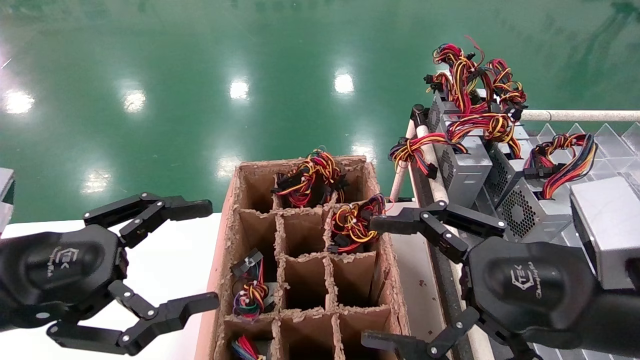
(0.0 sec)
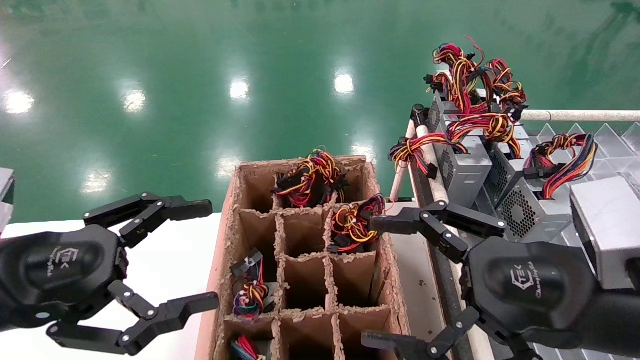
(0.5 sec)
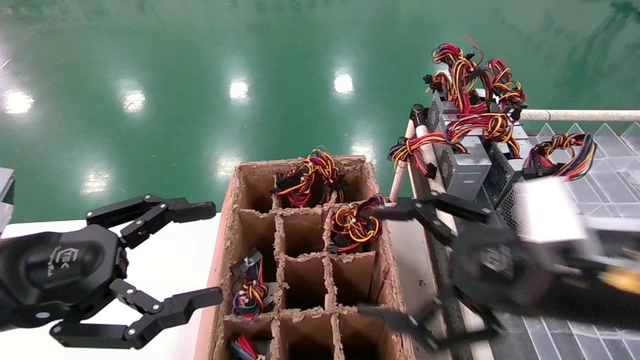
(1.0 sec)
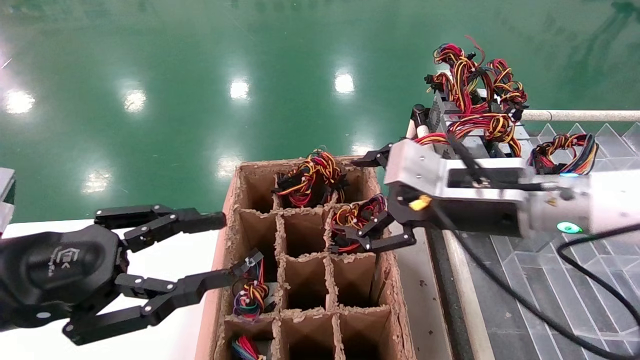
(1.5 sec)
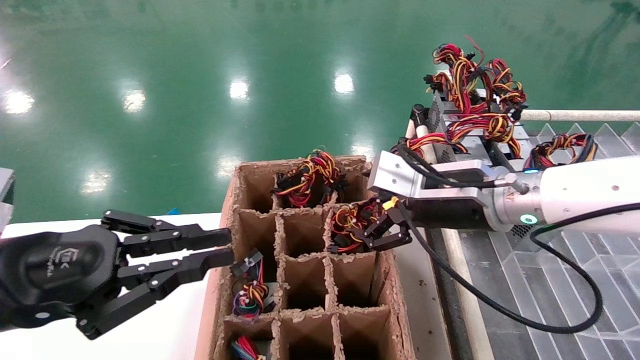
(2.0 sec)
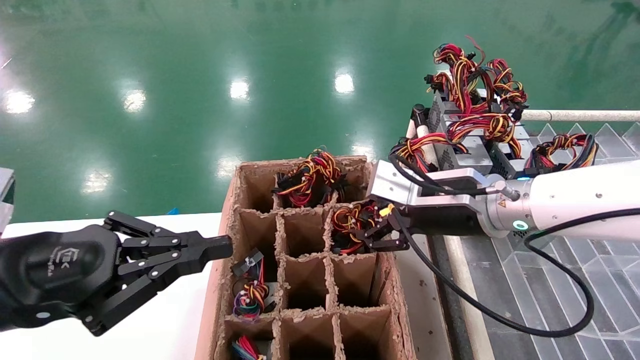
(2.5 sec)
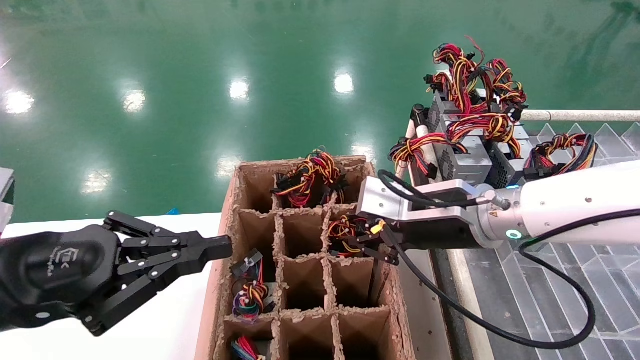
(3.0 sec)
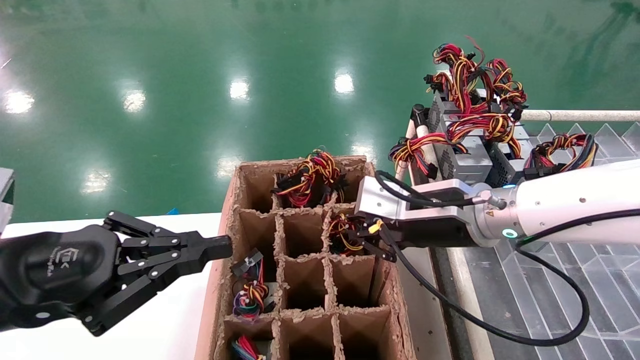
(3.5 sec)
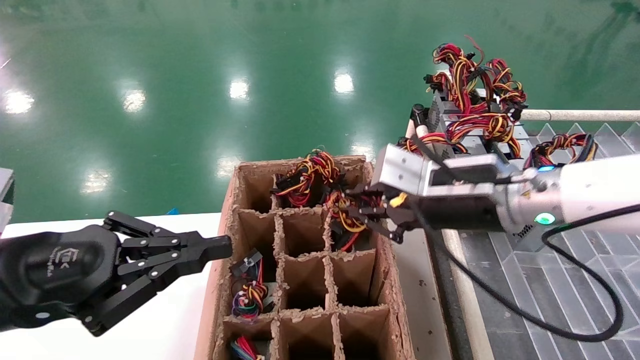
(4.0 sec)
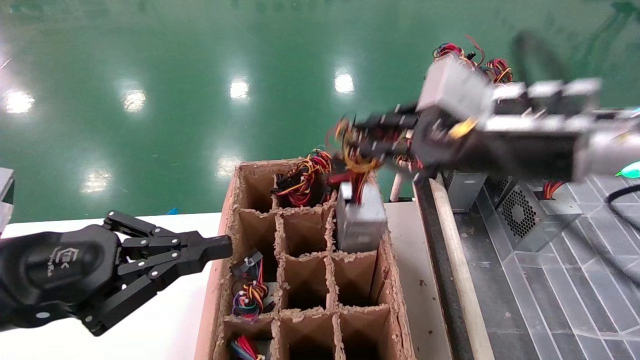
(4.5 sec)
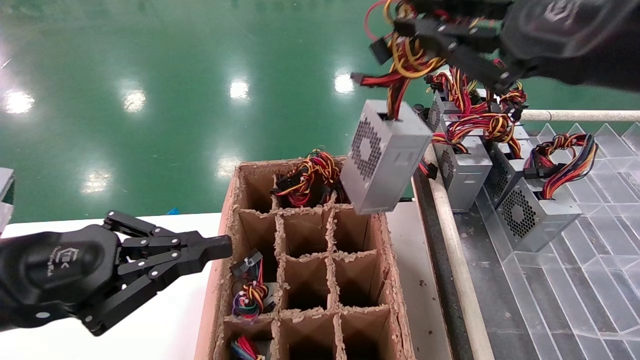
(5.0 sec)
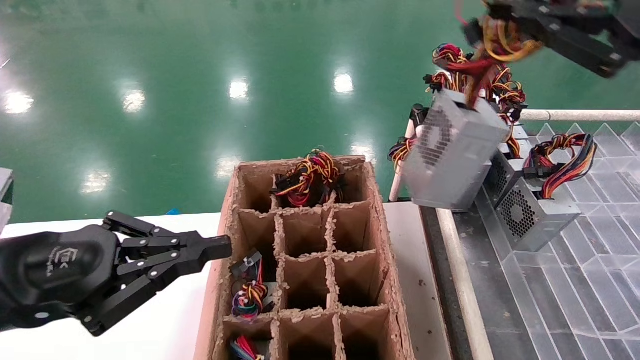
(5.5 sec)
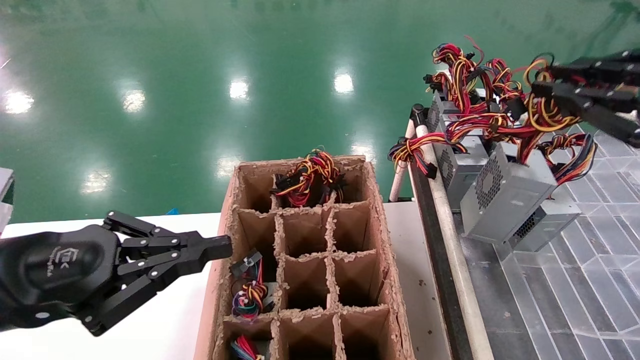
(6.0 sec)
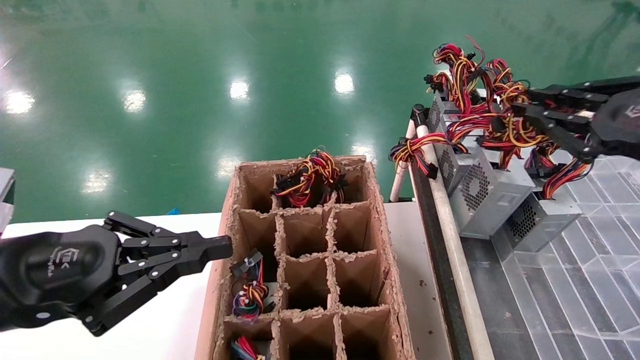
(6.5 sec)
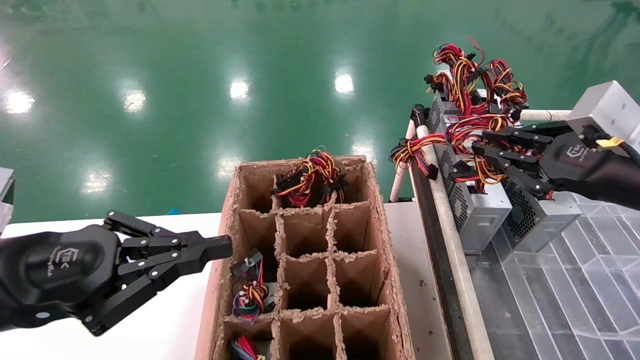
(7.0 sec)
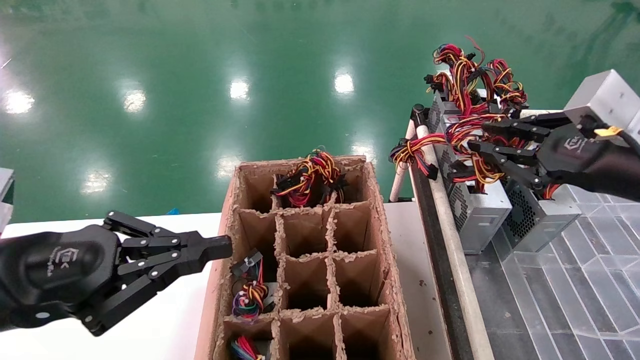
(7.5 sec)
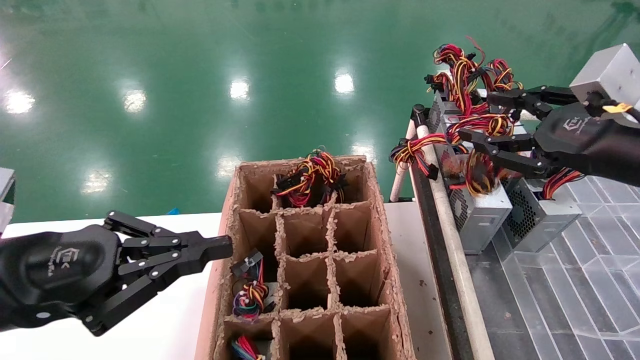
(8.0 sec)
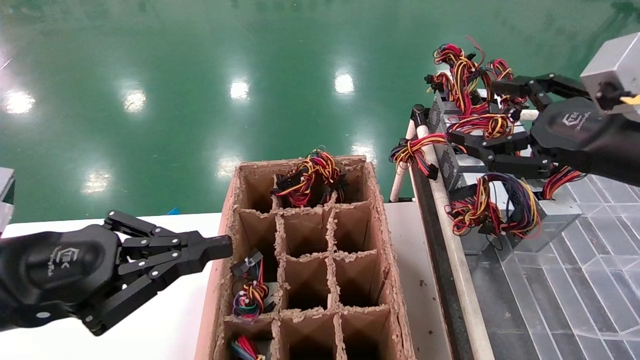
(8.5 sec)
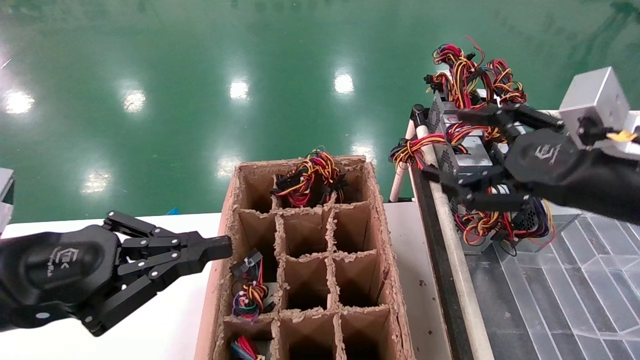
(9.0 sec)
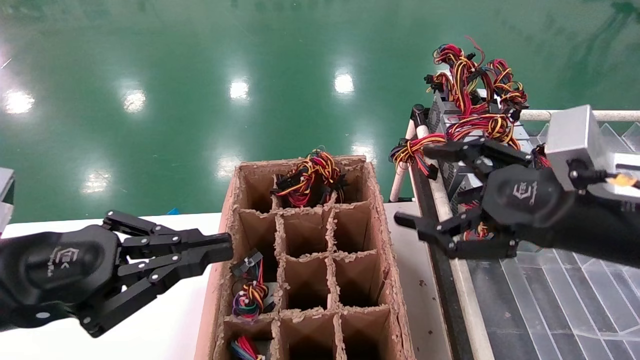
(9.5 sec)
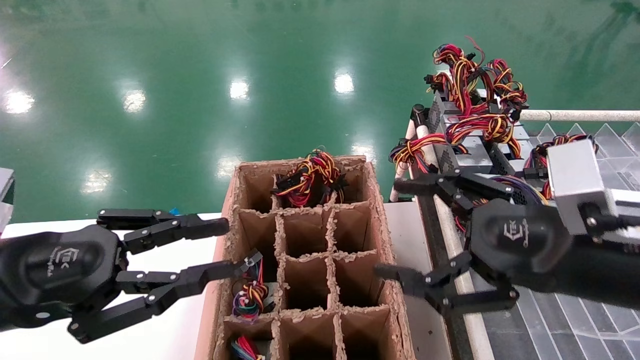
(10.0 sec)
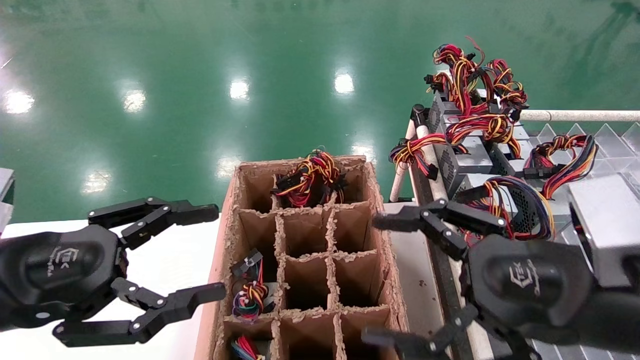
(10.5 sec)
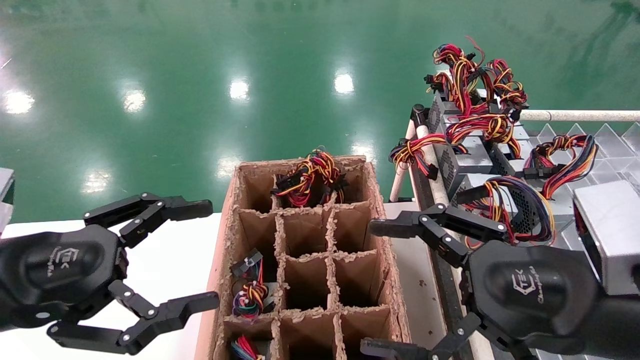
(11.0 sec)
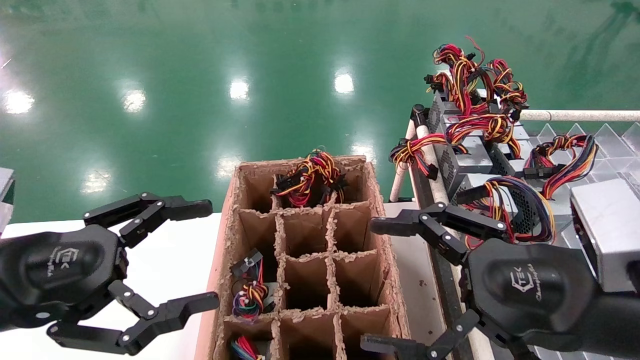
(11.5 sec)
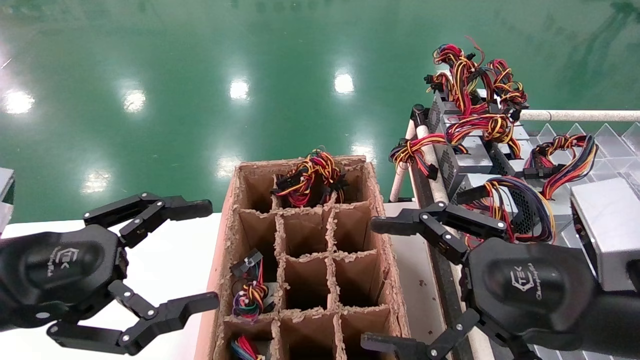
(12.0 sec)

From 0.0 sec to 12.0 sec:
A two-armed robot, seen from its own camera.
Step, from 1.5 sec to 3.5 sec: Grab the main unit power supply from the containment box.
Step, from 4.0 sec to 8.0 sec: Place the main unit power supply in the designated area.
From 0.0 sec to 2.0 sec: The right gripper moves forward and to the left, roughly 15 cm. Meanwhile the left gripper closes its fingers.
From 2.0 sec to 4.0 sec: The right gripper closes its fingers.
From 4.0 sec to 6.0 sec: The right gripper travels to the right, backward and upward by approximately 25 cm.
From 6.0 sec to 8.0 sec: The right gripper travels forward and downward by some 10 cm, and opens up.
From 8.0 sec to 10.0 sec: The right gripper goes some 10 cm to the left and downward, and opens up.
From 10.0 sec to 12.0 sec: The left gripper opens.

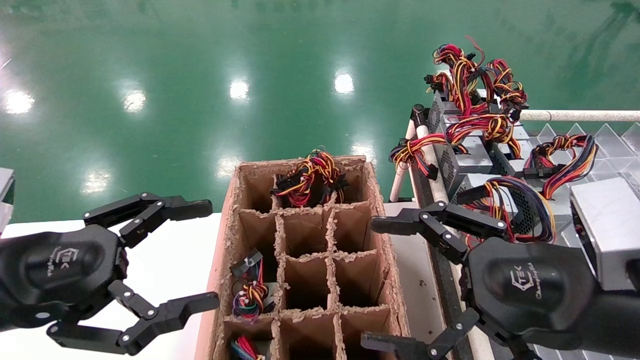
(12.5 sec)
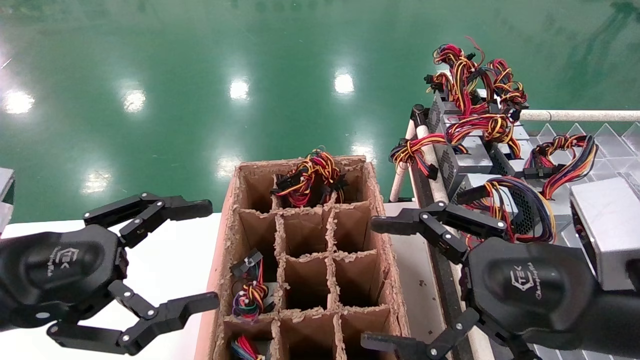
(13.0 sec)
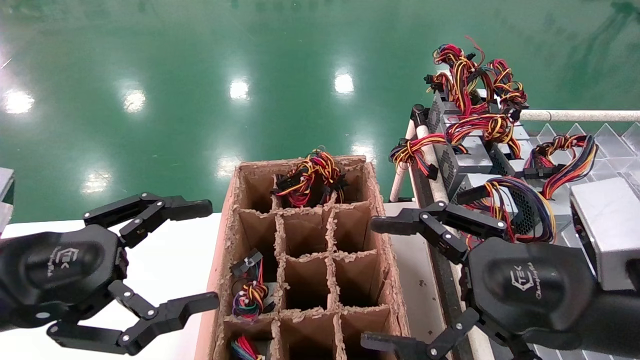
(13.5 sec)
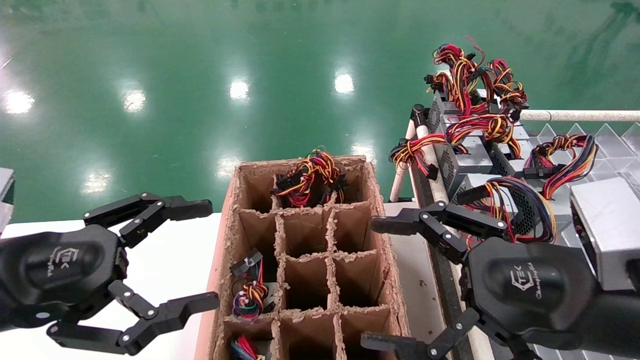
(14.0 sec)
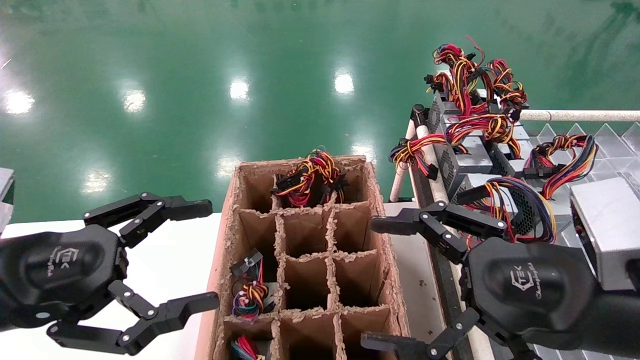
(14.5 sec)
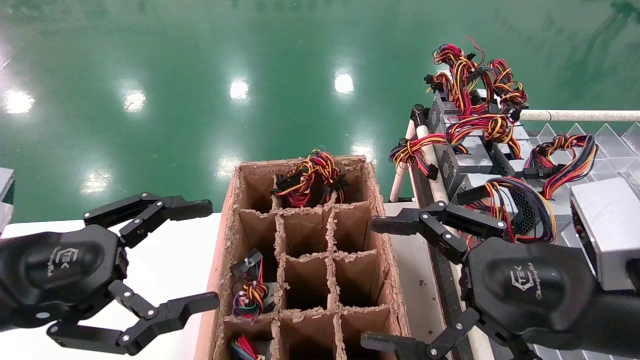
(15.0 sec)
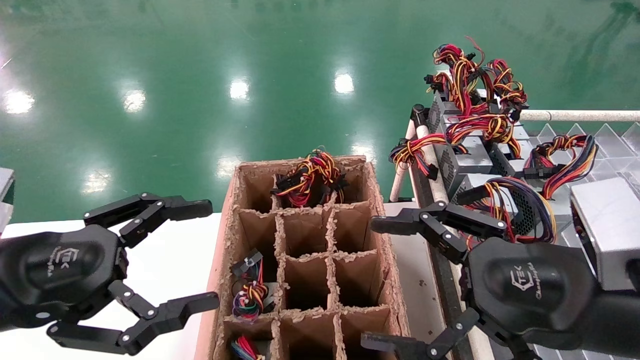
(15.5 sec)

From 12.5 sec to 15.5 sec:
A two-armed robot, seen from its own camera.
From 12.5 sec to 15.5 sec: Neither gripper changes place.

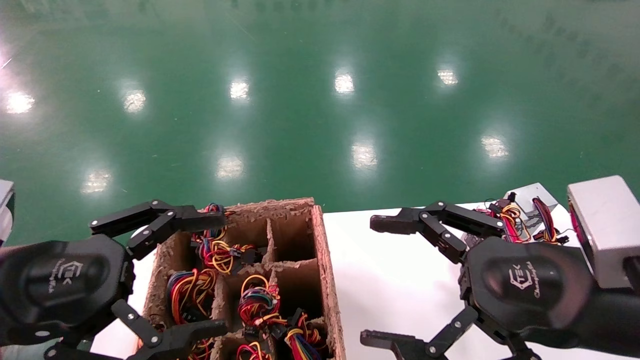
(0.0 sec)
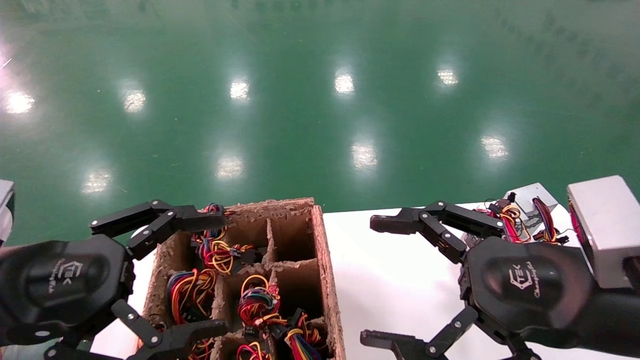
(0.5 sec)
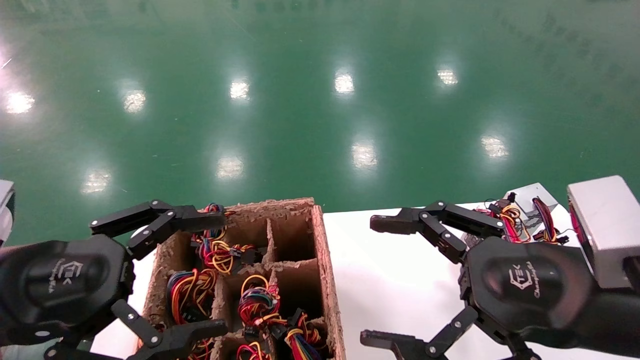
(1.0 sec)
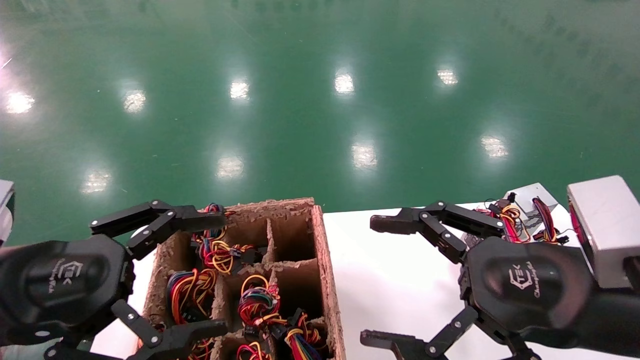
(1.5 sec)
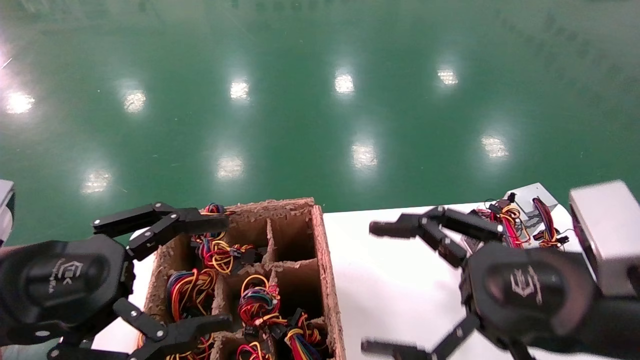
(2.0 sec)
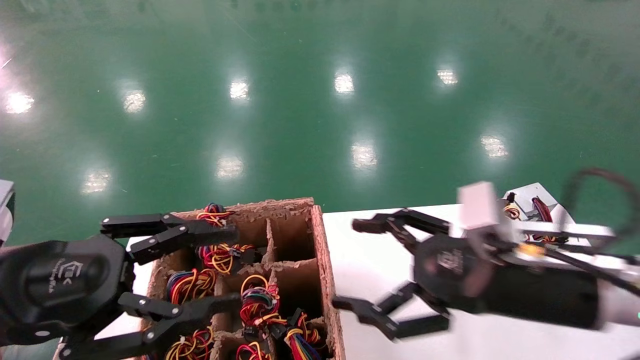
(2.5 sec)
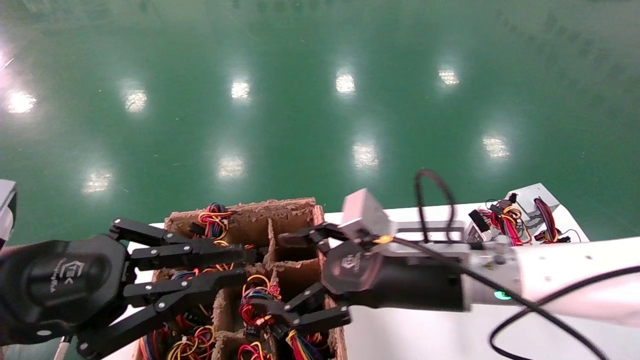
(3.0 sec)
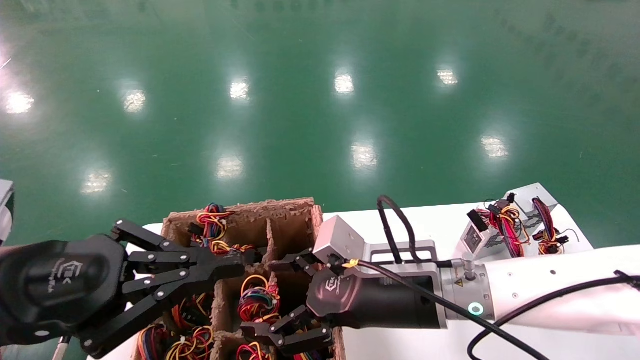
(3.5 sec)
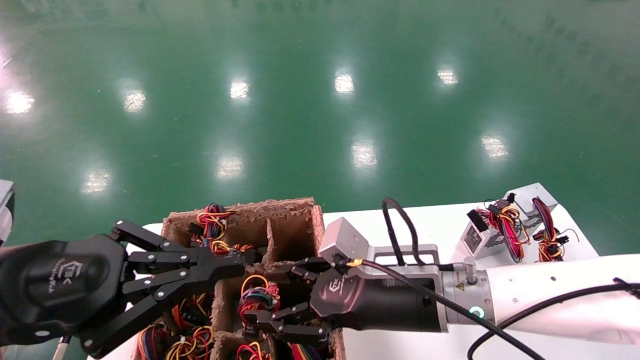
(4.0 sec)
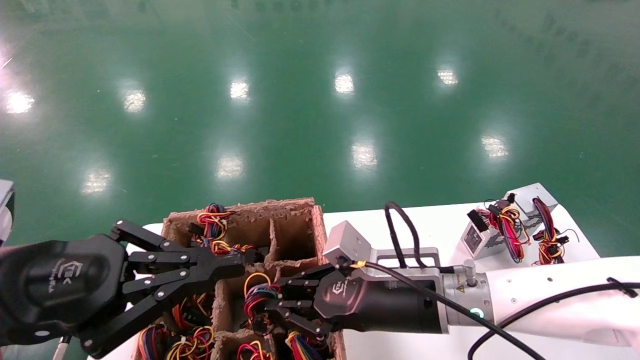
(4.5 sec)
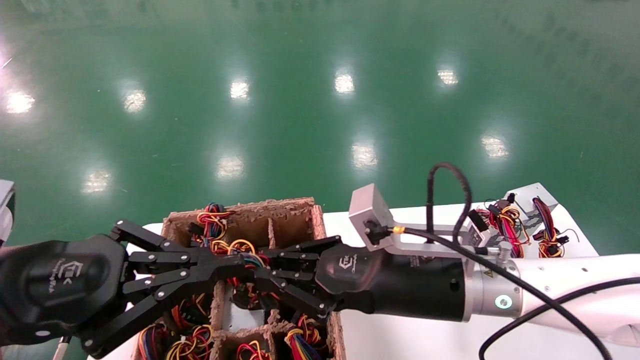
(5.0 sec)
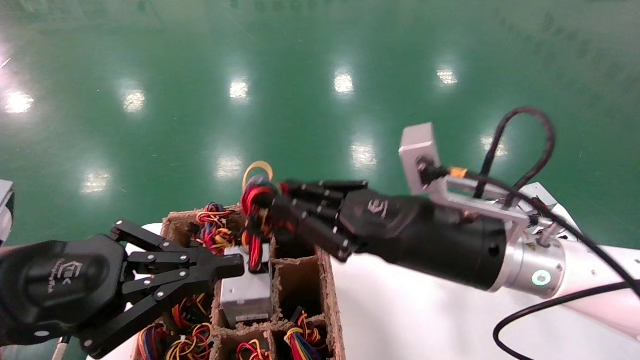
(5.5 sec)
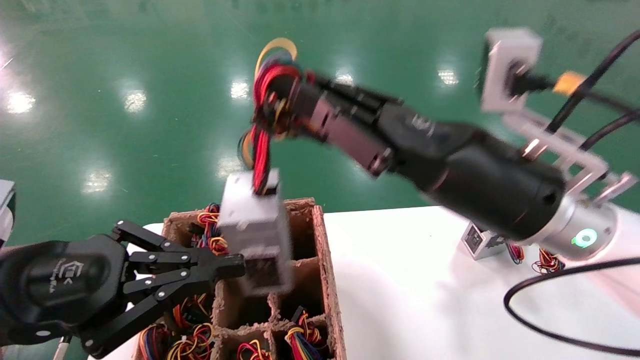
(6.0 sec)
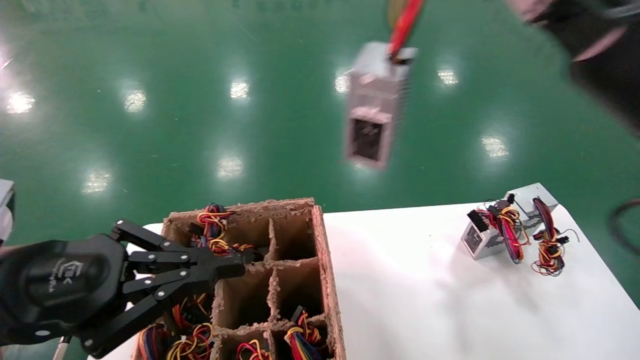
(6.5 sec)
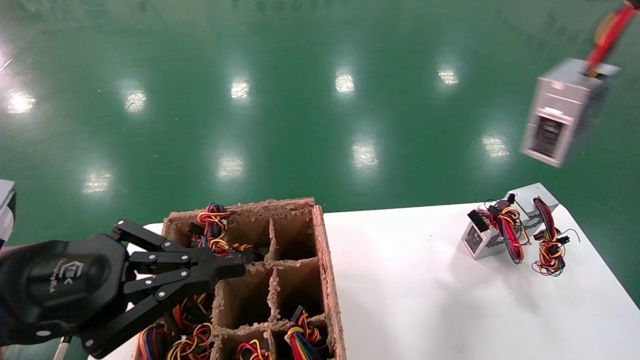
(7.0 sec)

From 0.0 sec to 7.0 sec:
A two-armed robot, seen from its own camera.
Step, from 2.5 sec to 4.5 sec: Grab the main unit power supply from the containment box.
From 0.0 sec to 2.0 sec: Both grippers stay about where they are.
From 2.0 sec to 3.5 sec: The right gripper shifts about 20 cm to the left, forward and downward, while the left gripper closes its fingers.
From 3.5 sec to 5.0 sec: The right gripper closes its fingers.
From 5.0 sec to 7.0 sec: The right gripper moves to the right and upward, about 35 cm.
